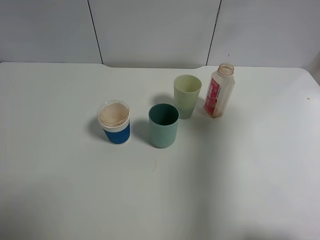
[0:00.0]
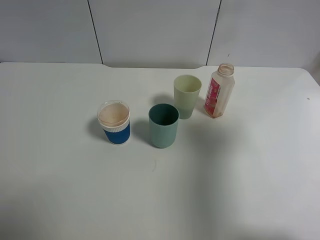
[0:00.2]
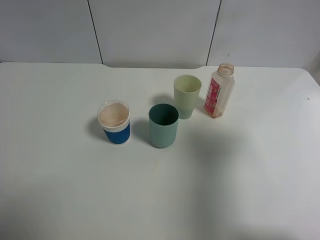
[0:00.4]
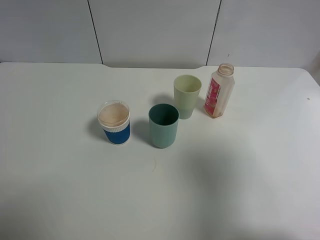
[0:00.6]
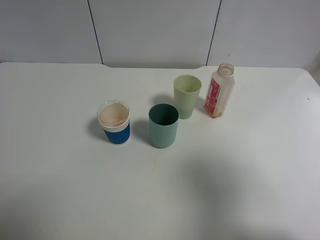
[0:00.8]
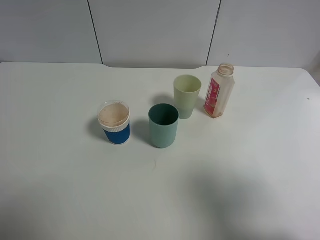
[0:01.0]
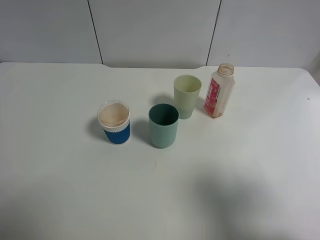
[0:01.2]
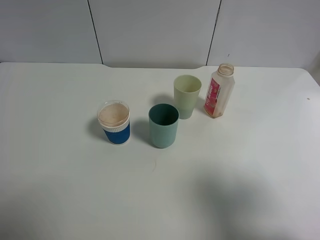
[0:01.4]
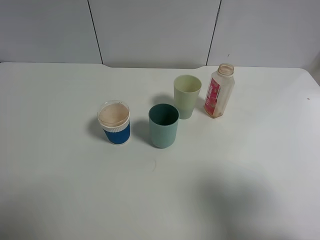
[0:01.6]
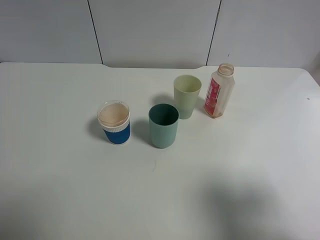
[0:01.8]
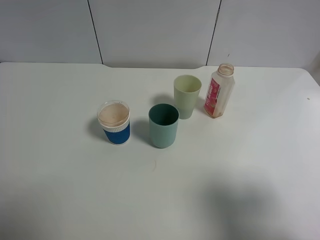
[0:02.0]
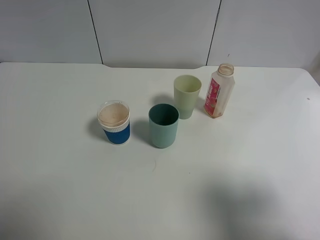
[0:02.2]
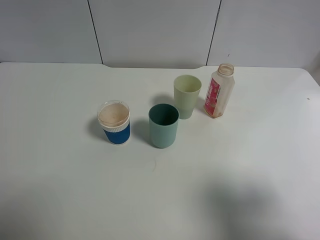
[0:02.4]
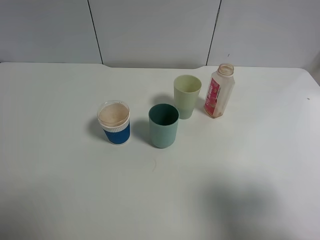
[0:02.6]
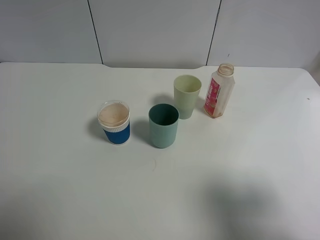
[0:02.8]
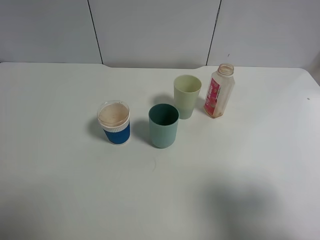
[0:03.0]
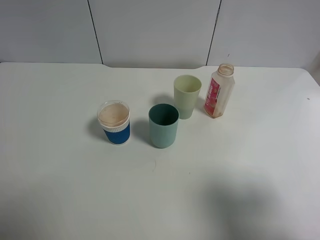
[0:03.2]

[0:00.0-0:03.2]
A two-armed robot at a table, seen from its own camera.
Task of the whole recording: use a gripper to hold the bottle of the drink and pour it into a random cup.
0:00.0 to 0:01.6: The right gripper heads backward, covering approximately 15 cm.
0:01.6 to 0:03.2: Both grippers stay about where they are.
